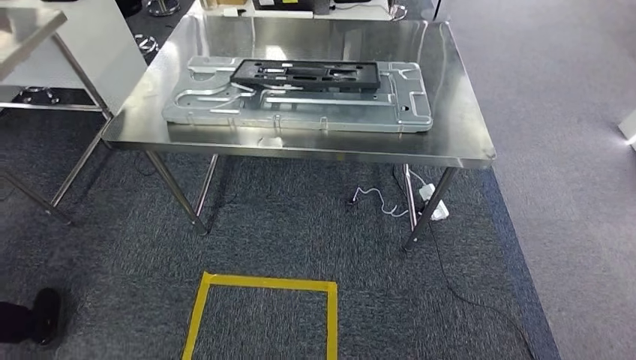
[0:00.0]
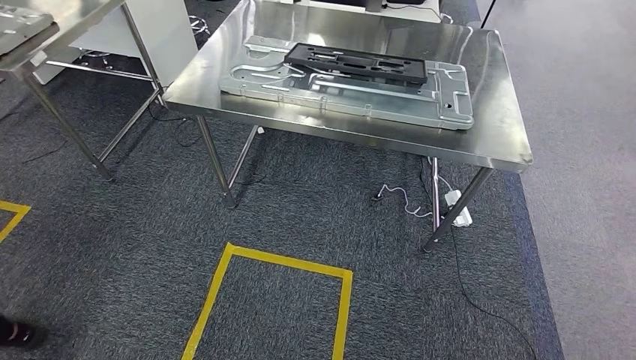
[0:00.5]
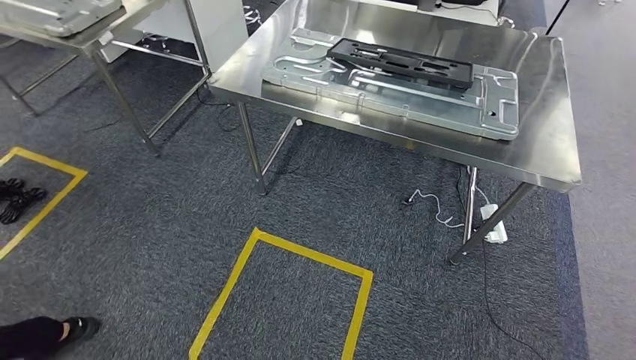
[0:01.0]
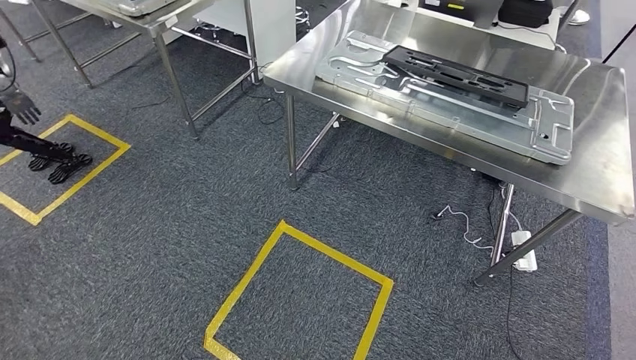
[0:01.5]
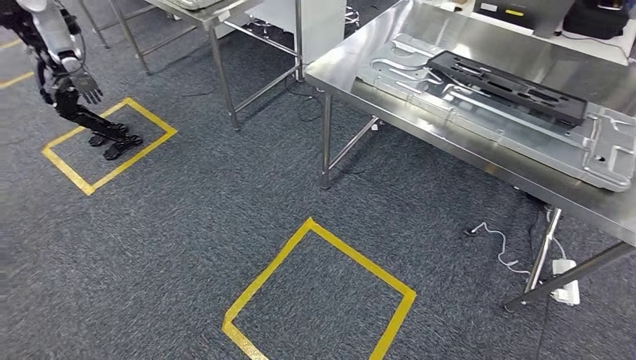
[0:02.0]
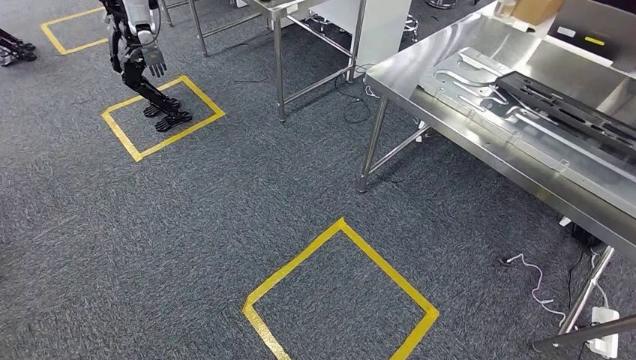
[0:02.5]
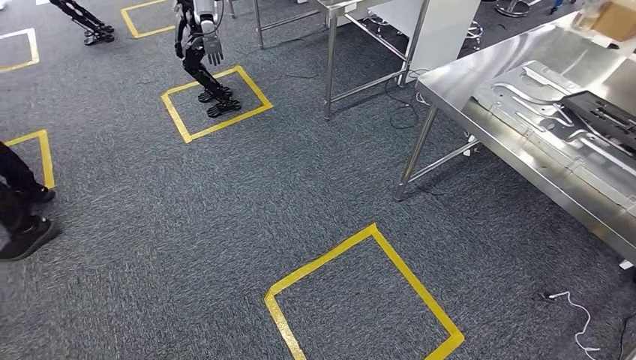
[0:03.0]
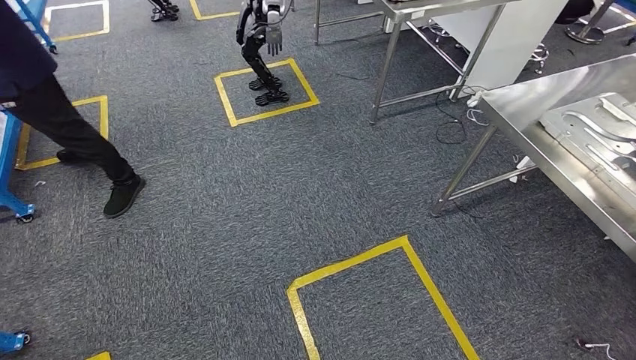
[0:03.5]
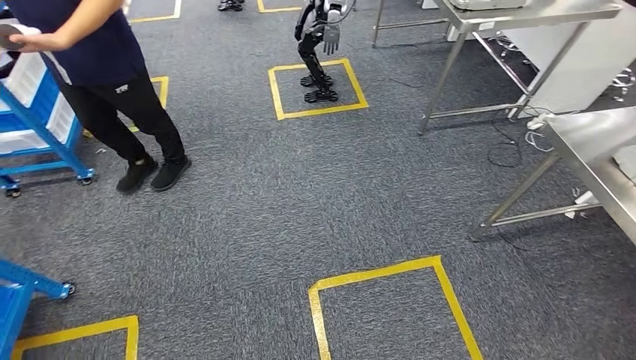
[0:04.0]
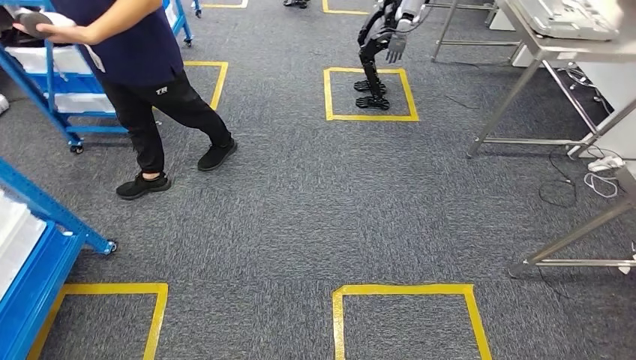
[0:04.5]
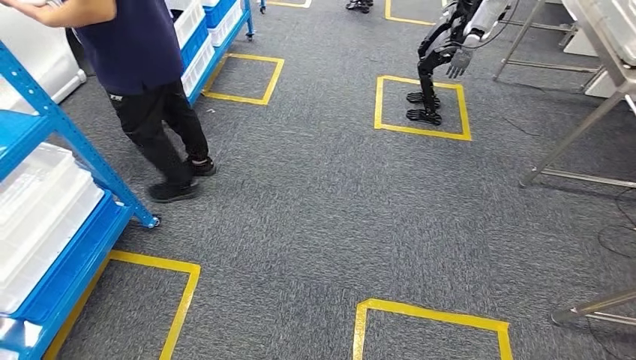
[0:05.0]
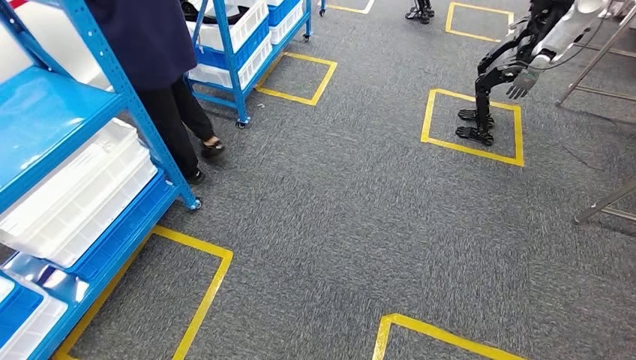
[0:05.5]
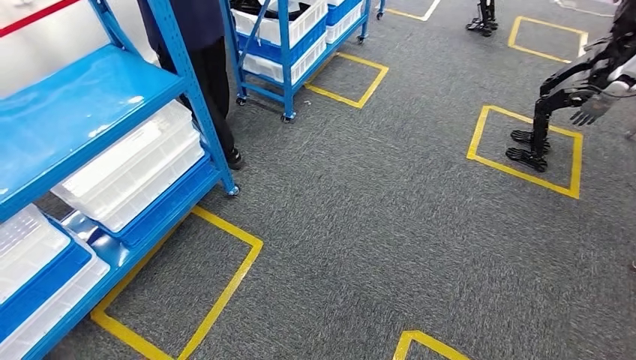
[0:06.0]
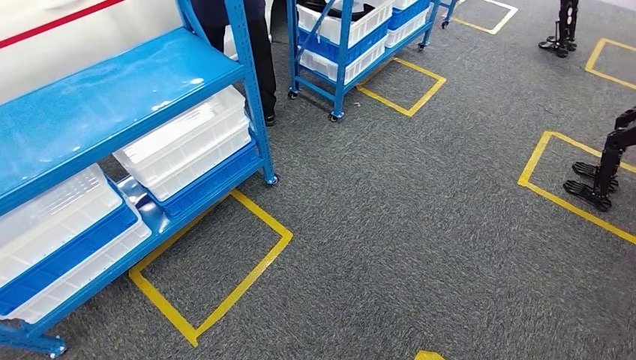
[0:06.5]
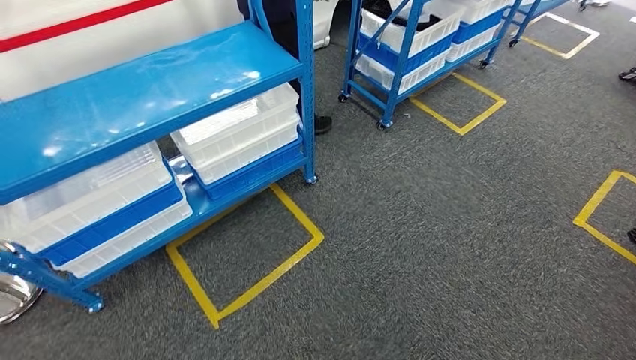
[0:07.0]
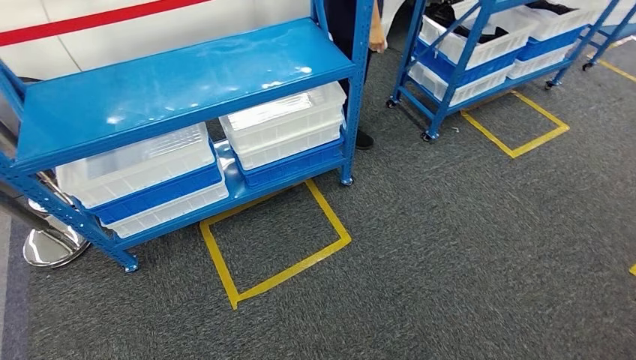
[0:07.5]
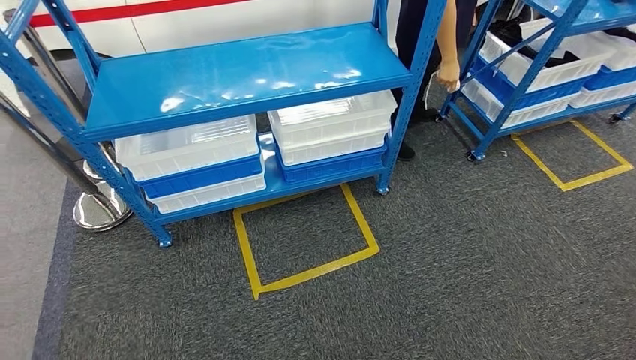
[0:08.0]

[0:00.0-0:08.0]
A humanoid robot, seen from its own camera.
Step, 0:00.0 to 0:08.0: Return to the initial position at the shelf.

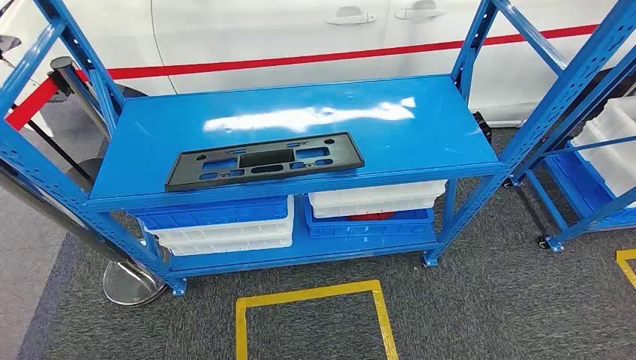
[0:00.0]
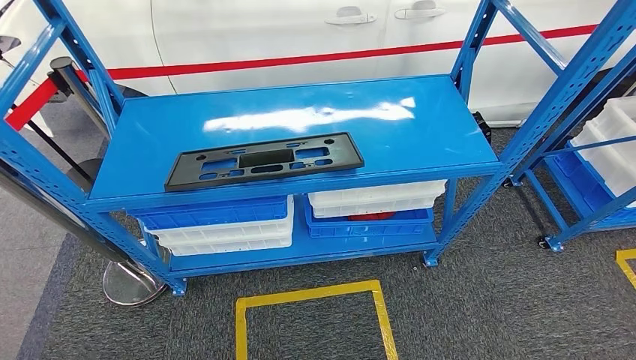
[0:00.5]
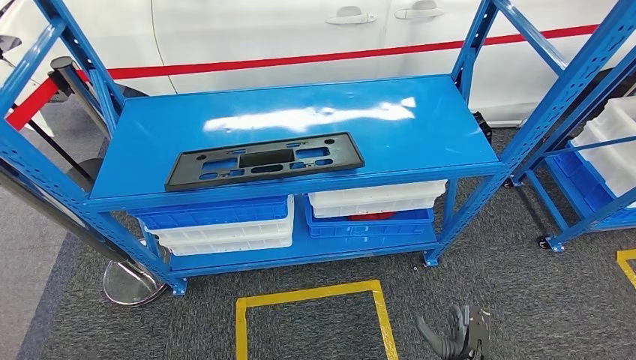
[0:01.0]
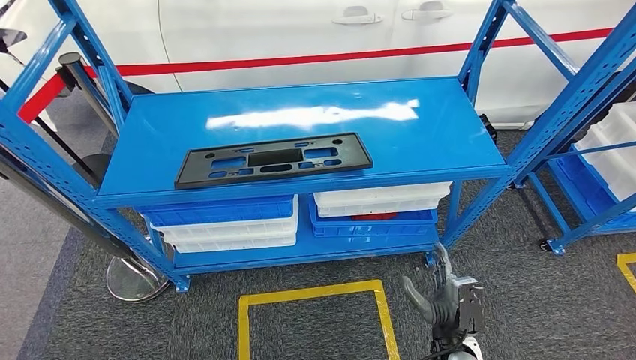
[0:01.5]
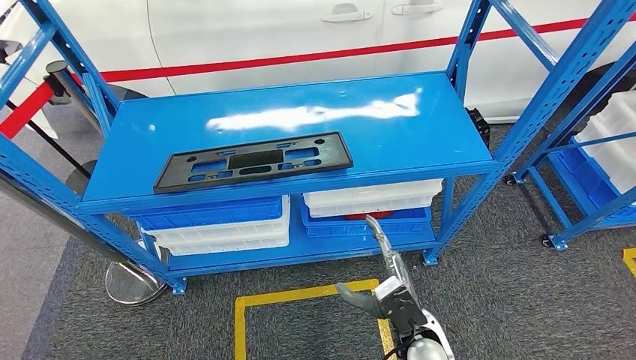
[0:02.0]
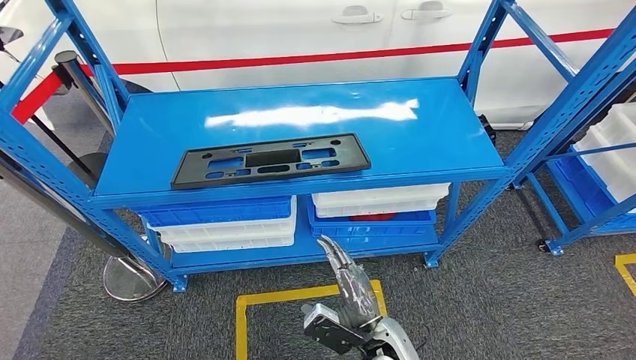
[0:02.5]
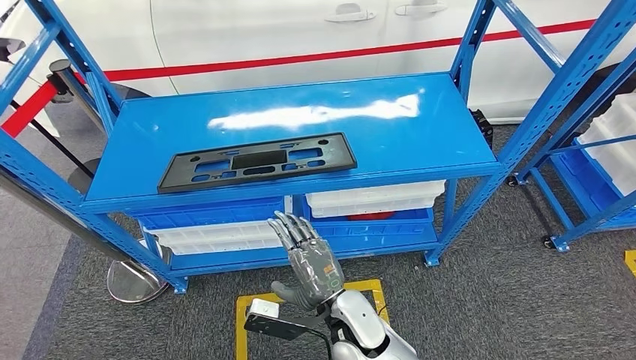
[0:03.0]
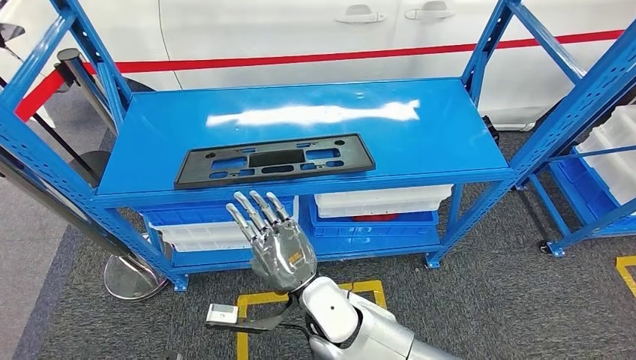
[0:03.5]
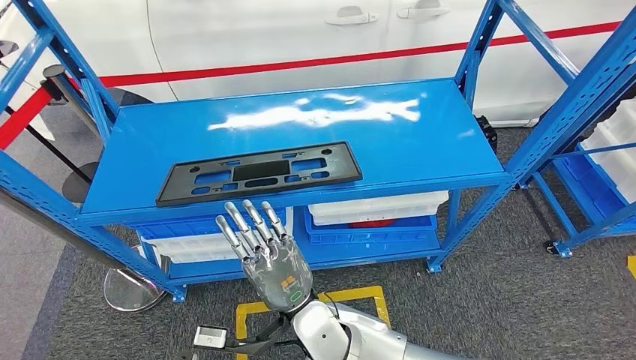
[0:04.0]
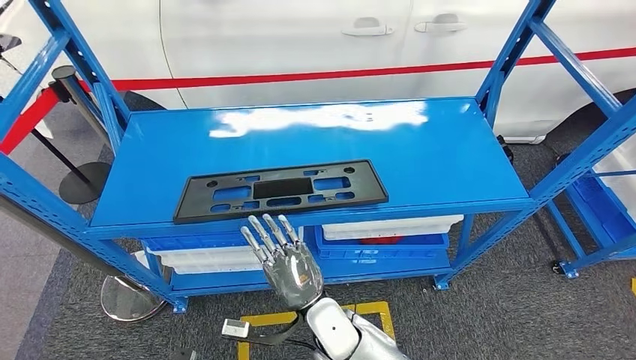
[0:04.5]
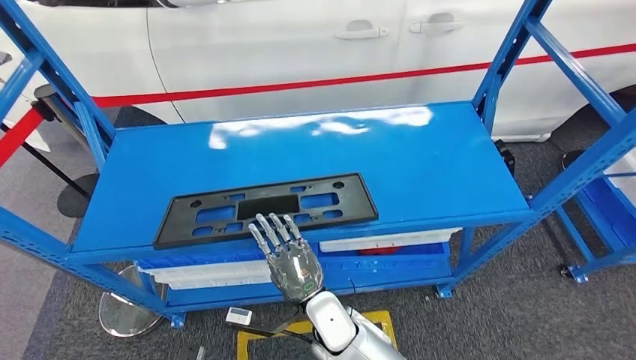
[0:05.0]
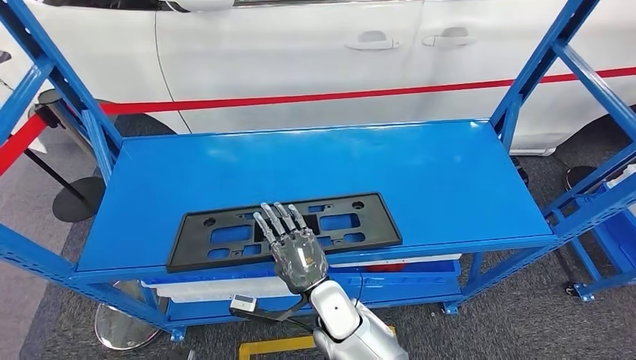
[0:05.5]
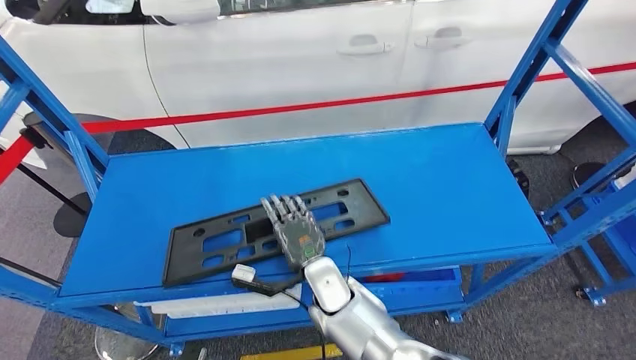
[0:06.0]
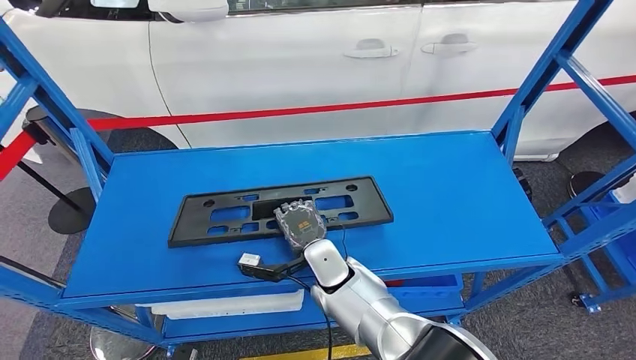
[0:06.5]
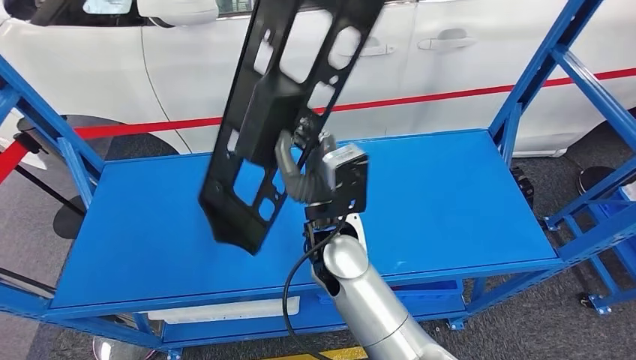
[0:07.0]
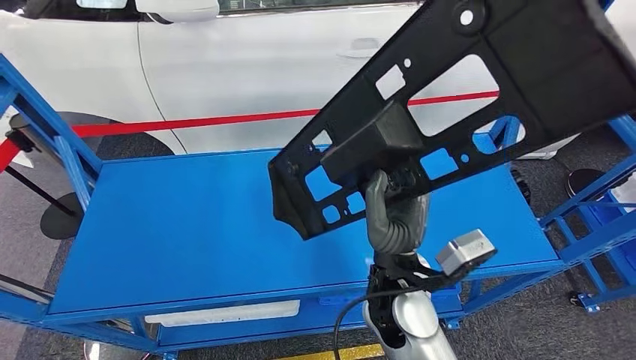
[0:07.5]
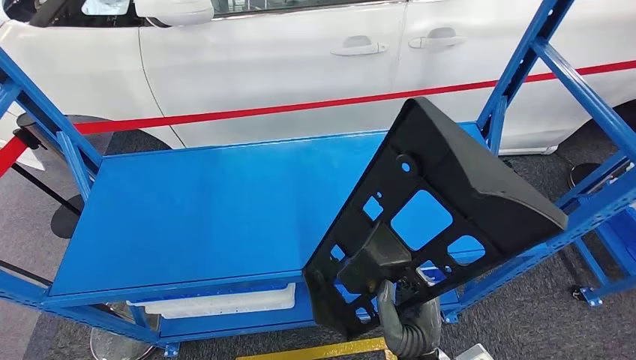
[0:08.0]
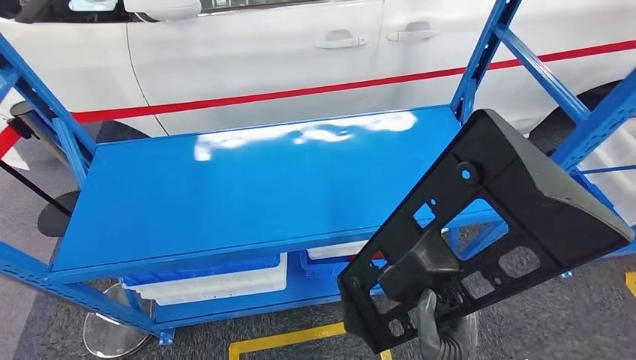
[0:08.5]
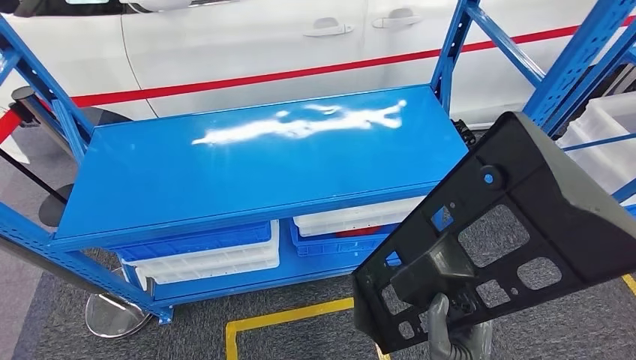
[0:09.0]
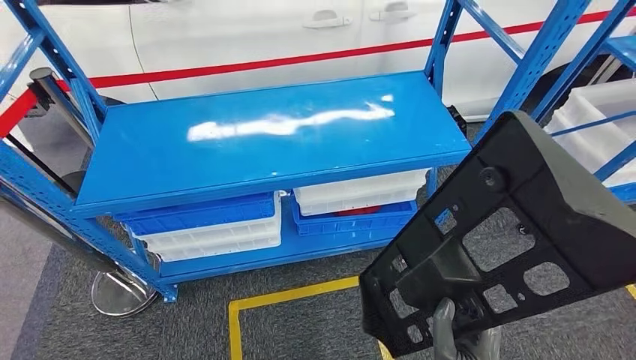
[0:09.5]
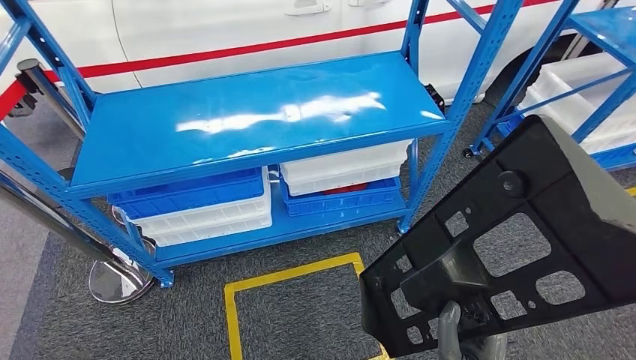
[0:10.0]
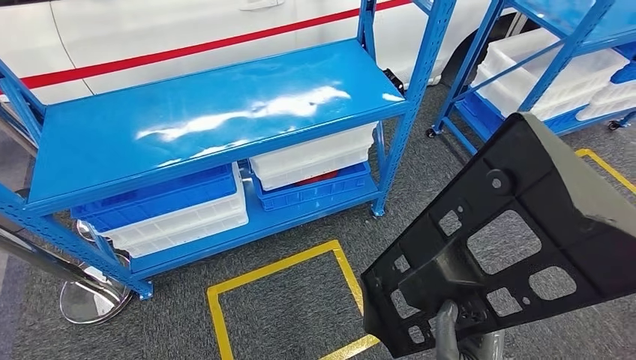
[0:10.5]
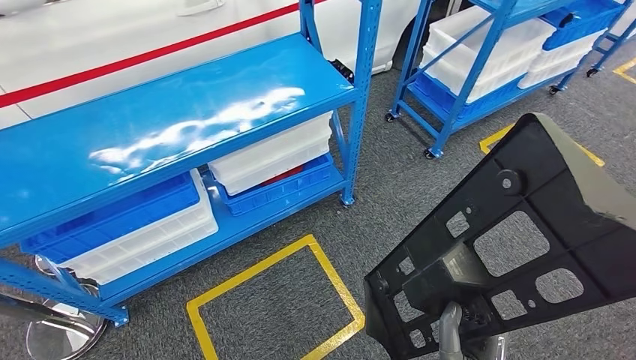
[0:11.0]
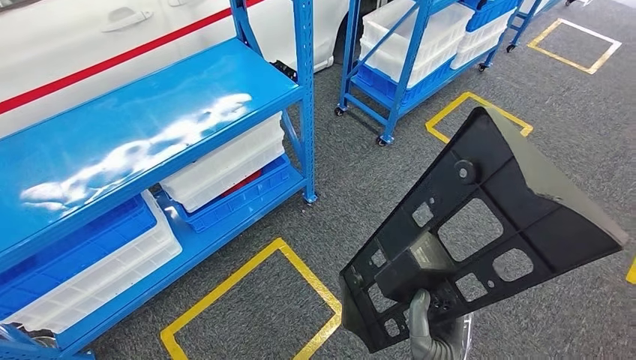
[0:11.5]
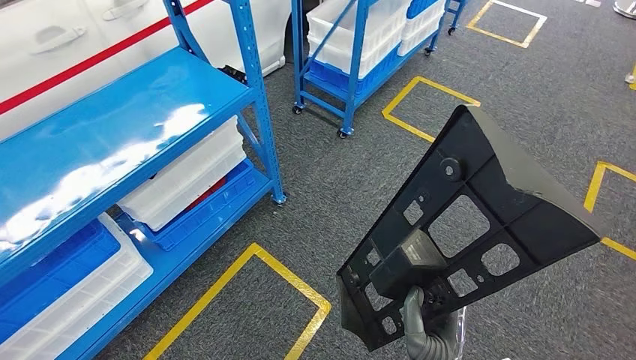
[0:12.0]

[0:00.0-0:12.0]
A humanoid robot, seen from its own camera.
Step, 0:00.0 to 0:08.5: Pick up the large parts from the shelf.
